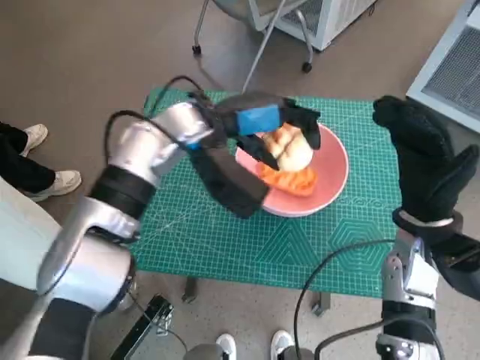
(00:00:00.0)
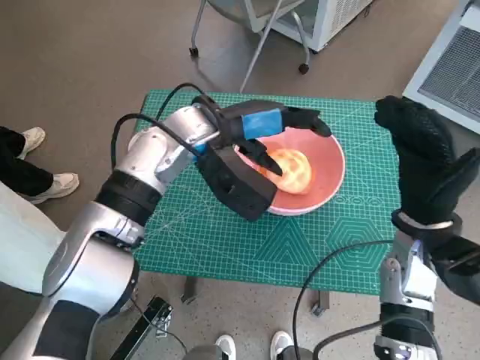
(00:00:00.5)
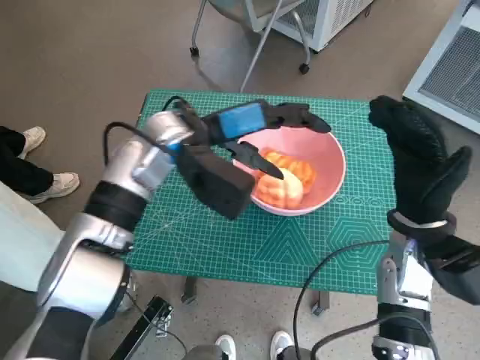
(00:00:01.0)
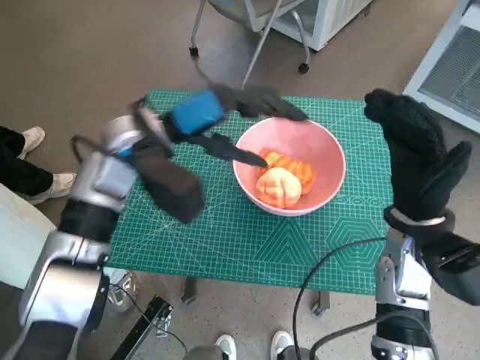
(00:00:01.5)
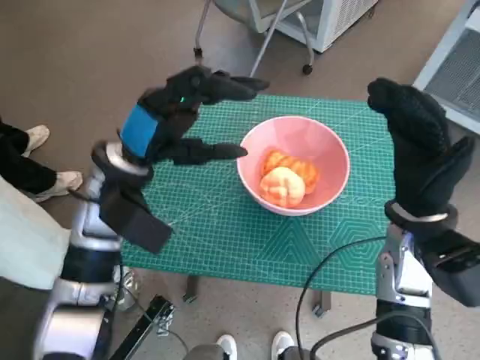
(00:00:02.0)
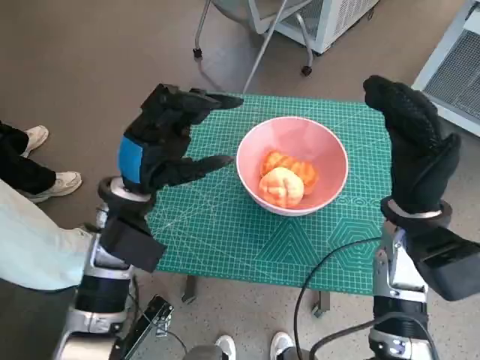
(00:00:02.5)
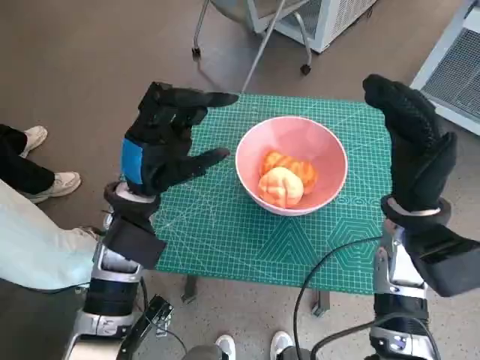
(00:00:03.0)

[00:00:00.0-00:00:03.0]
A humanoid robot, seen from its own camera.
Task of the whole recording: Push the bowl to the center of the table and put the bread into the bowl.
00:00:00.0 to 00:00:01.5: The left hand moves to the left, approximately 5 cm.
00:00:01.5 to 00:00:03.0: The left hand goes roughly 10 cm downward and backward.

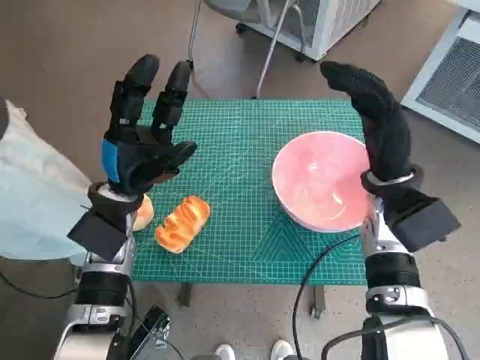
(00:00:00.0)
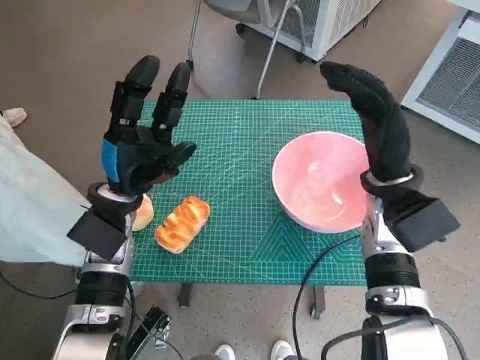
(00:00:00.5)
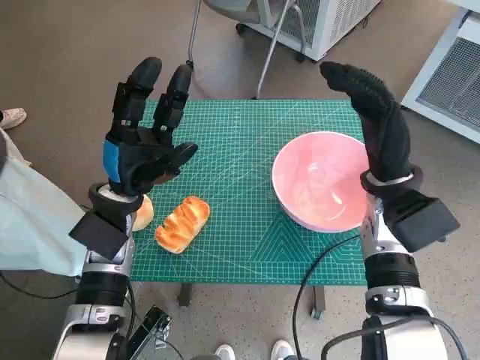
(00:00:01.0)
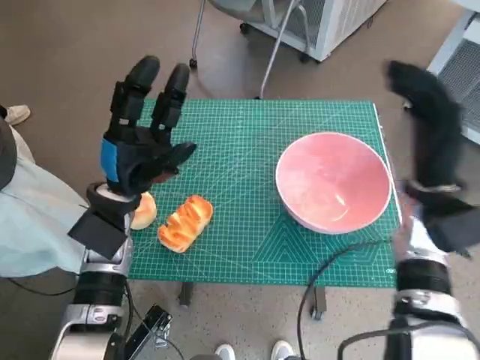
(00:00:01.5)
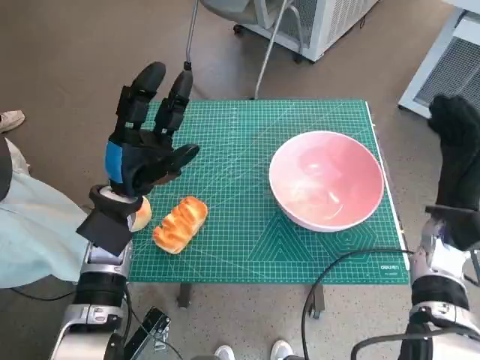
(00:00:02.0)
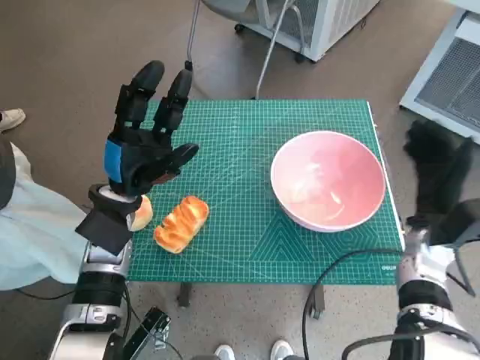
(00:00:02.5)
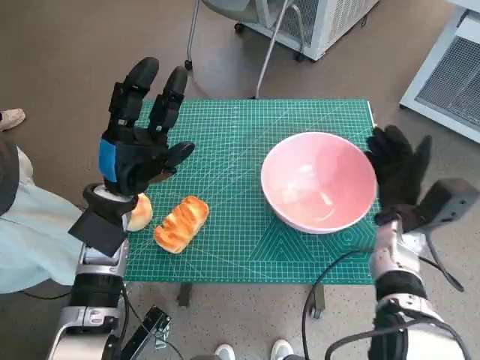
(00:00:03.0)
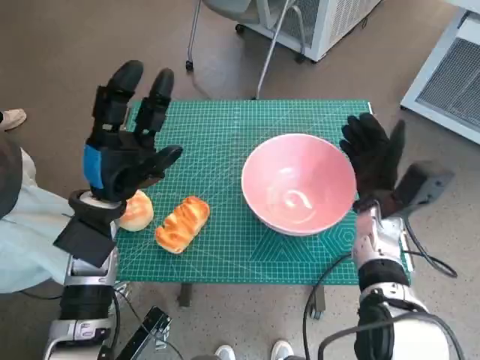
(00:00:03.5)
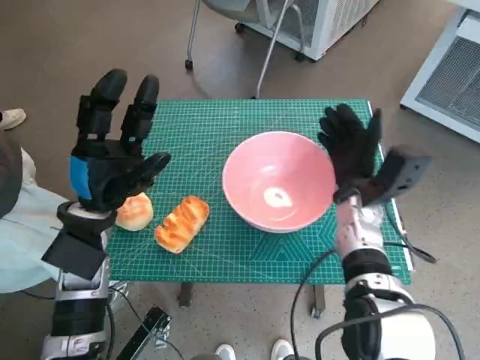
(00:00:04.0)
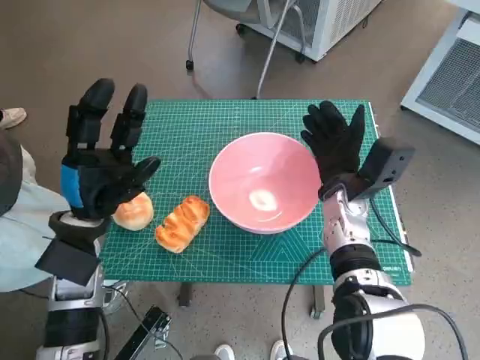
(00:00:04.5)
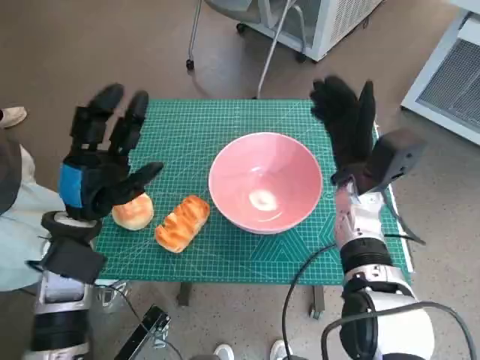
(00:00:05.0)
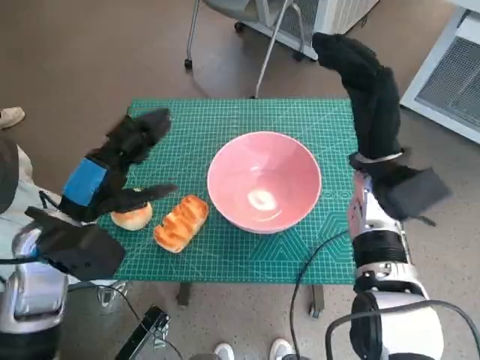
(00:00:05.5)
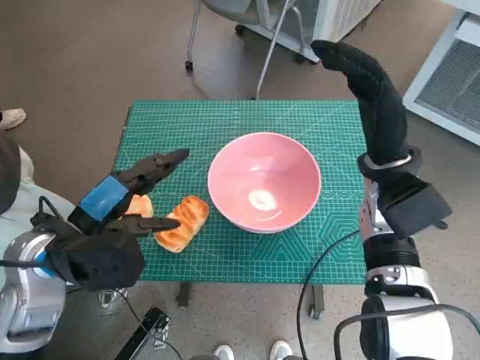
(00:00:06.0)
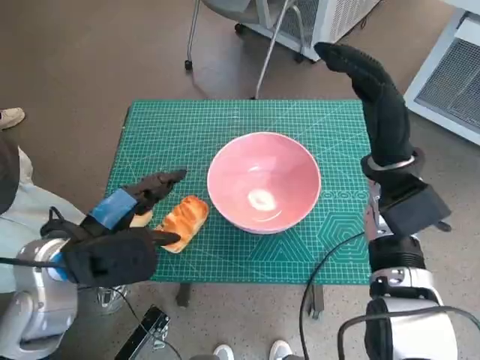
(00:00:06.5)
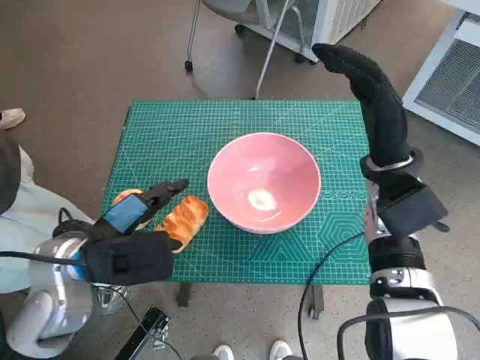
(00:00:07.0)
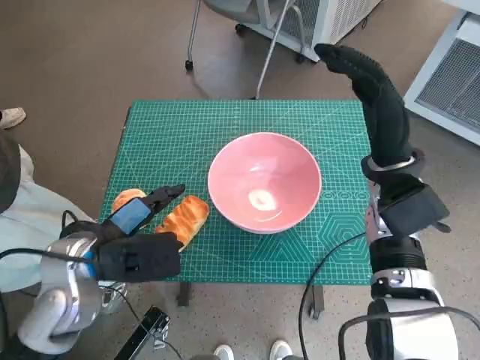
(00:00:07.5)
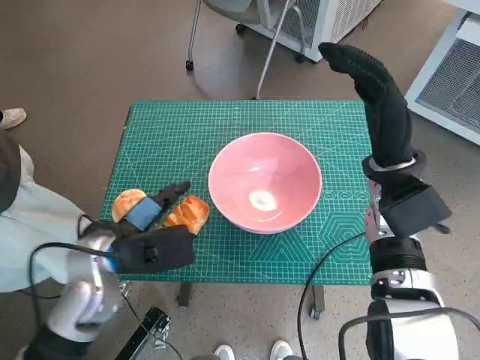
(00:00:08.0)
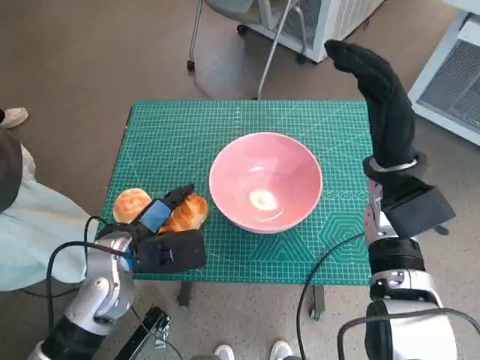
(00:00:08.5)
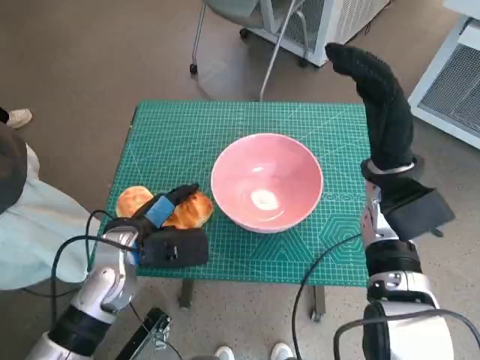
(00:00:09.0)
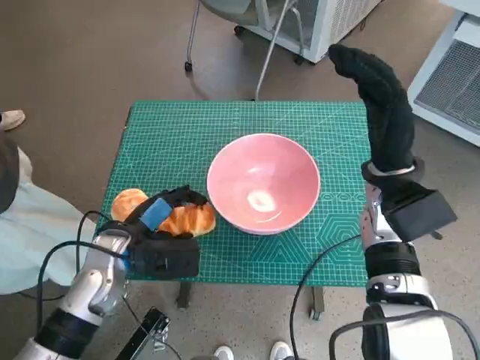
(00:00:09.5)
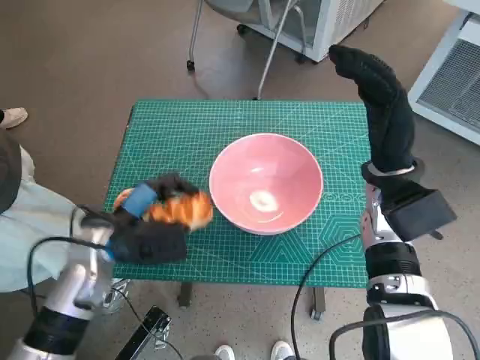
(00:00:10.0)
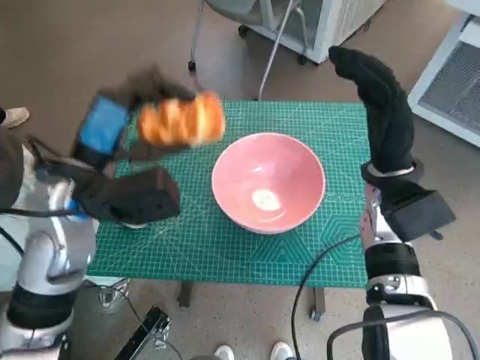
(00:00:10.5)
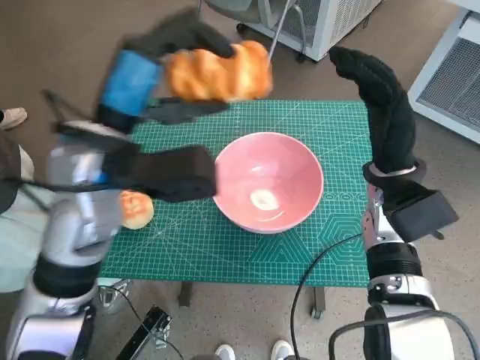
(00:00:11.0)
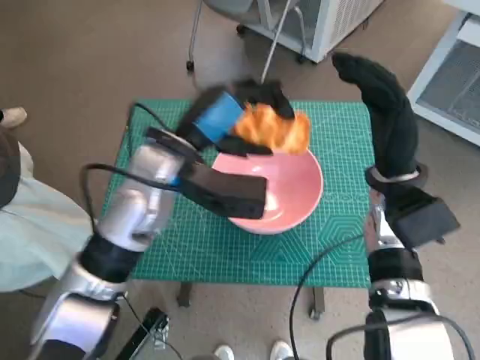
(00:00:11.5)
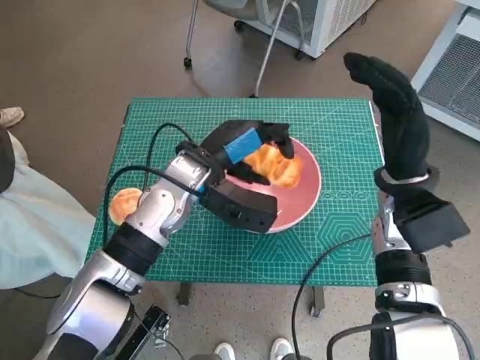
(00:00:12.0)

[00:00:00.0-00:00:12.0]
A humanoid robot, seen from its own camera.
Task of the whole recording: Push the bowl to the center of the table and put the bread into the bowl.
Step, 00:00:00.0 to 00:00:04.5: Move the pink bowl to the center of table with right hand.
Step, 00:00:05.0 to 00:00:09.0: Grasp the long bread with left hand.
00:00:02.0 to 00:00:04.0: The right hand shifts some 10 cm to the left.
00:00:04.0 to 00:00:06.0: The right hand shifts about 10 cm upward. Meanwhile the left hand ends up approximately 5 cm from where it was.
00:00:06.0 to 00:00:08.0: The left hand changes place by about 5 cm.
00:00:08.0 to 00:00:10.0: The hands stay close to where they were, moving slightly.
00:00:10.0 to 00:00:12.0: The left hand is displaced to the right, forward and upward by about 15 cm.

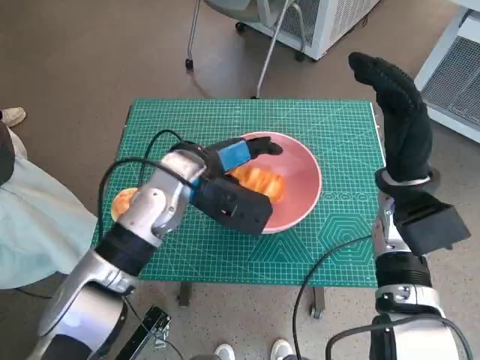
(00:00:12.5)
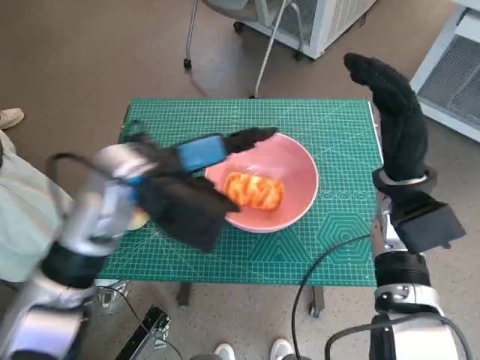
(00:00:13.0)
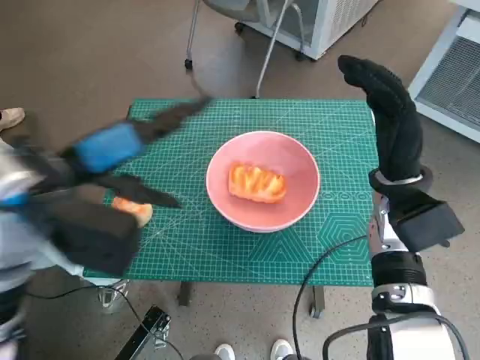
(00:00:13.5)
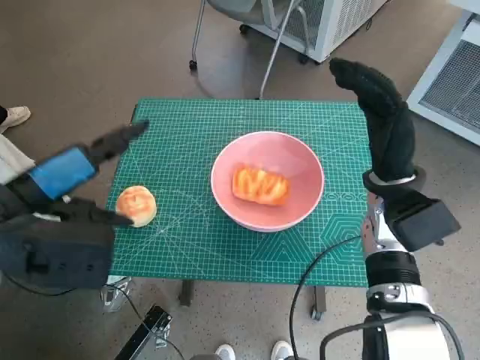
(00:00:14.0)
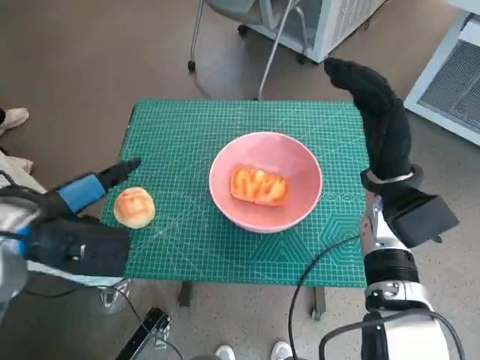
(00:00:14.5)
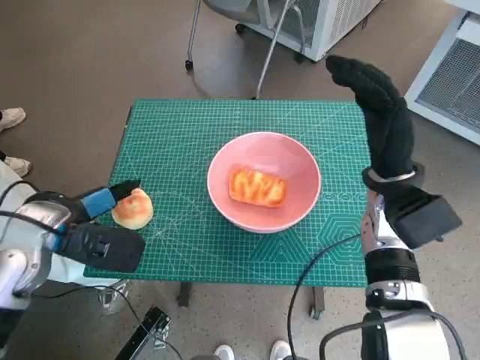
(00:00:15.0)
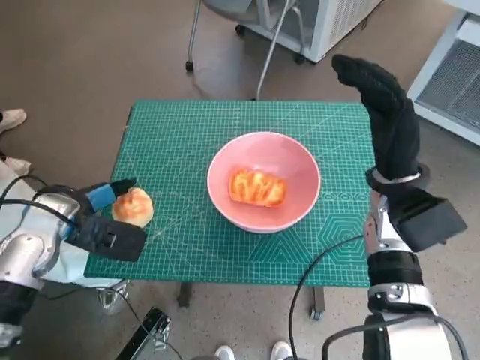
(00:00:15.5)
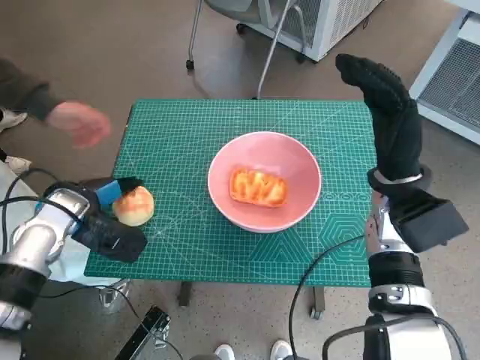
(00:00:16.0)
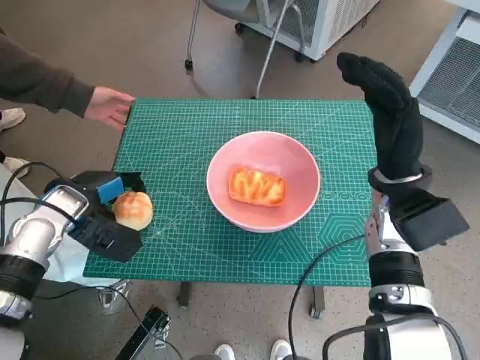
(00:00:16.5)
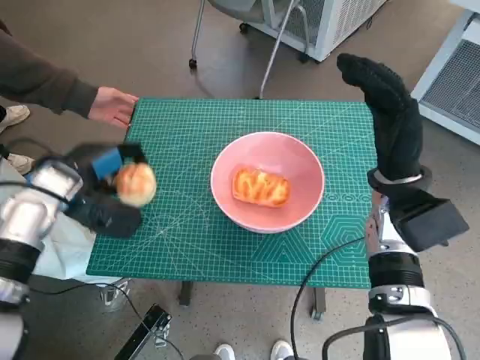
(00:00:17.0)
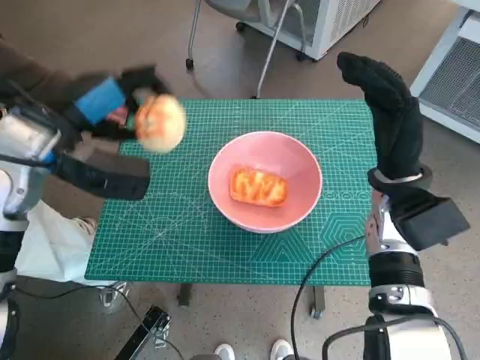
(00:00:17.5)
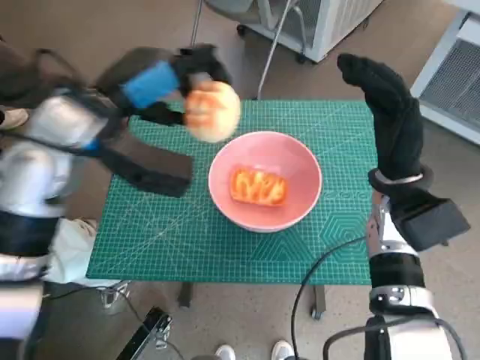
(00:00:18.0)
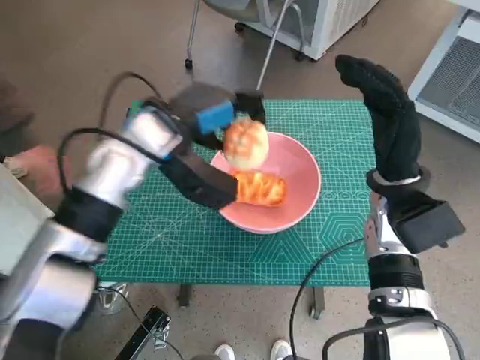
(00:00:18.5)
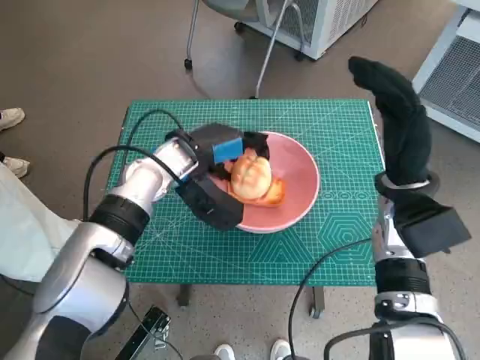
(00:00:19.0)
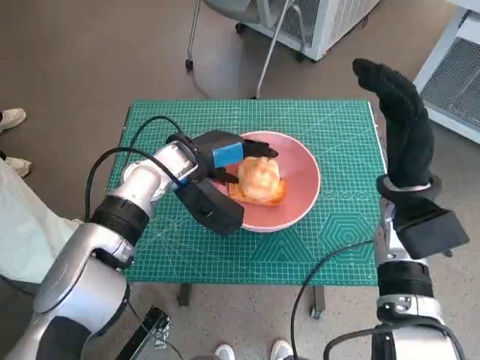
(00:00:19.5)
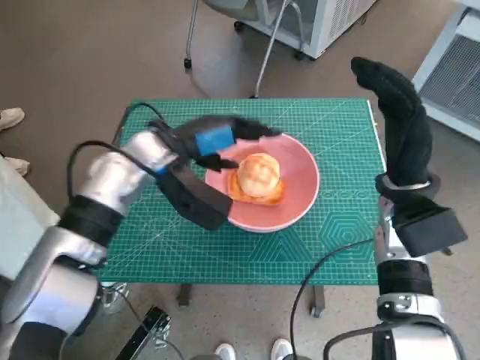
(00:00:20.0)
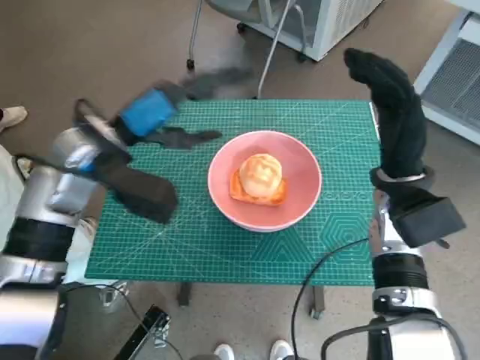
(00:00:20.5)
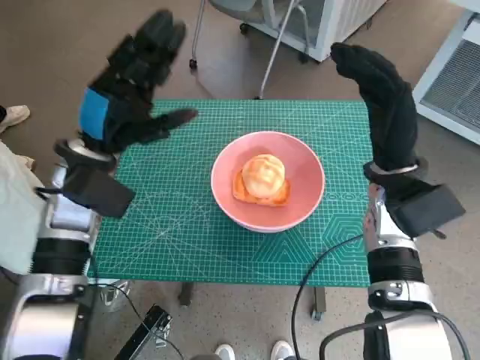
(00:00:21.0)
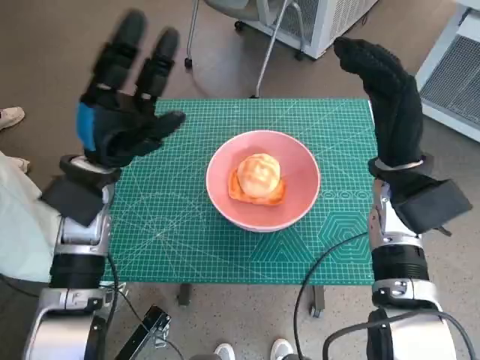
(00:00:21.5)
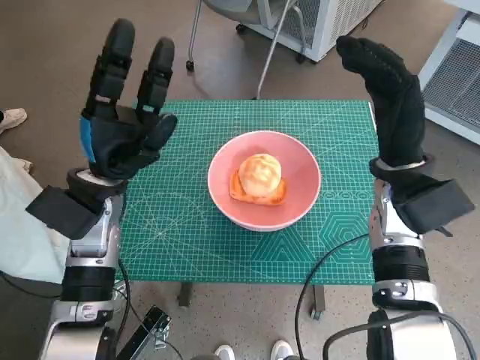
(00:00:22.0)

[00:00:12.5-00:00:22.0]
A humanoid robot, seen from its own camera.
Task of the whole recording: Push the bowl to the center of the table and put the bread into the bowl.
Step, 00:00:13.5 to 00:00:16.0: Grasp the round bread with left hand.
Step, 00:00:16.5 to 00:00:20.0: Place the round bread in pink bowl with left hand.
00:00:12.5 to 00:00:14.5: The left hand heads to the left and backward, covering approximately 20 cm.
00:00:14.5 to 00:00:16.5: The left hand shifts roughly 10 cm downward and forward.
00:00:16.5 to 00:00:18.0: The left hand is displaced upward and to the right by some 20 cm.
00:00:18.0 to 00:00:20.0: The left hand is displaced downward by about 10 cm.
00:00:20.0 to 00:00:22.0: The left hand travels to the left and backward by roughly 10 cm.
